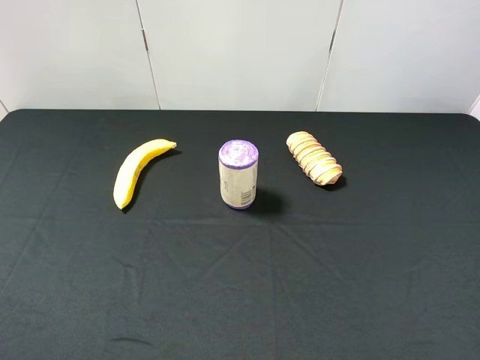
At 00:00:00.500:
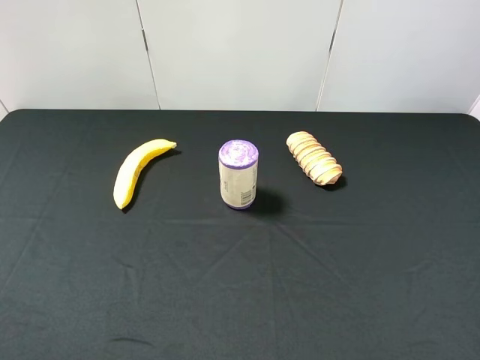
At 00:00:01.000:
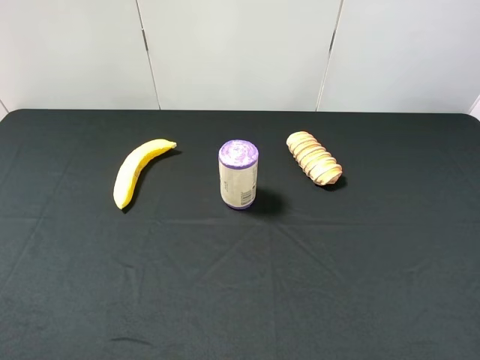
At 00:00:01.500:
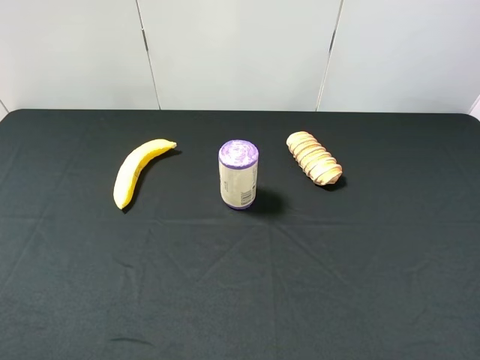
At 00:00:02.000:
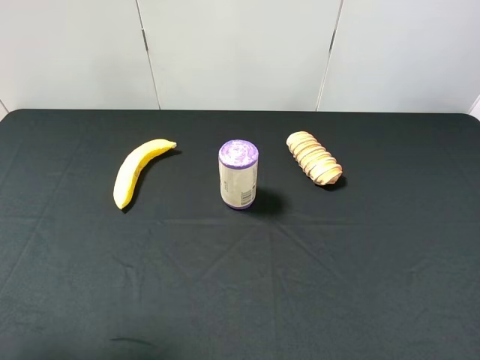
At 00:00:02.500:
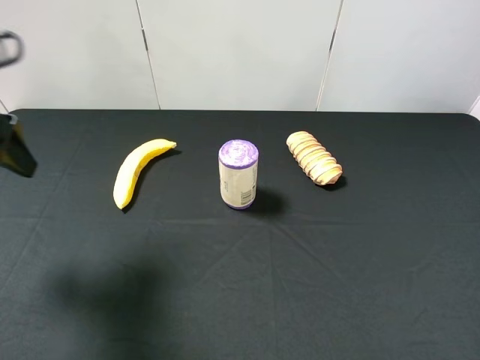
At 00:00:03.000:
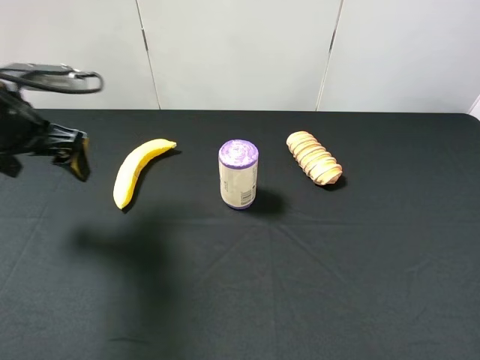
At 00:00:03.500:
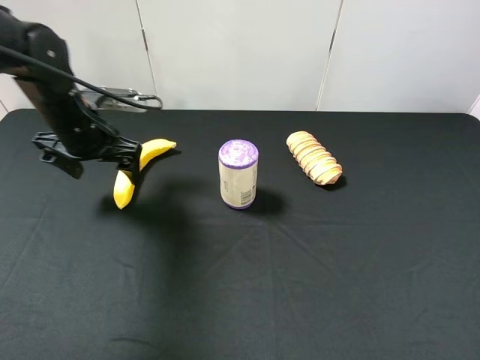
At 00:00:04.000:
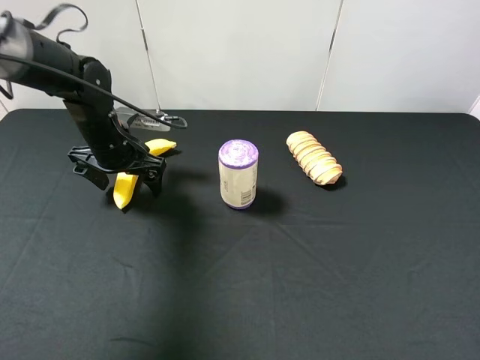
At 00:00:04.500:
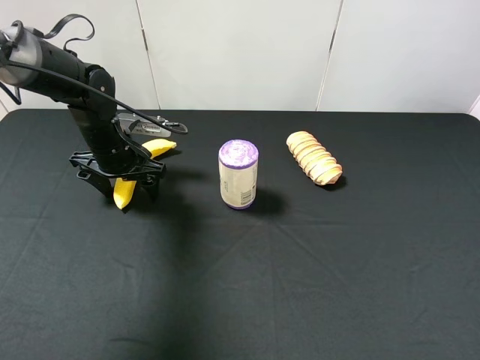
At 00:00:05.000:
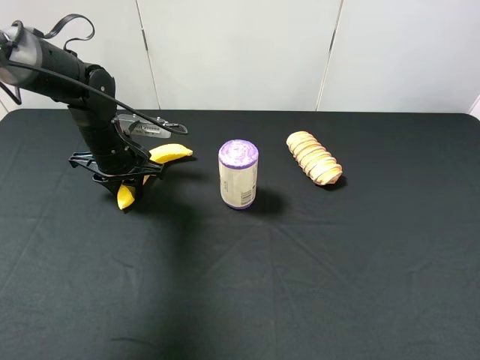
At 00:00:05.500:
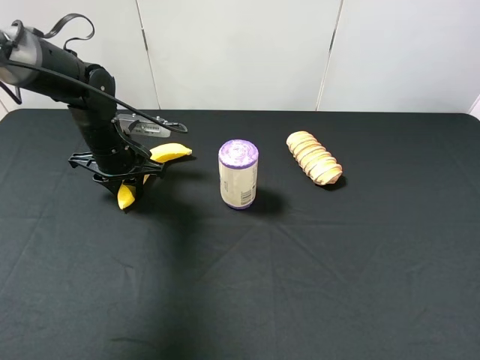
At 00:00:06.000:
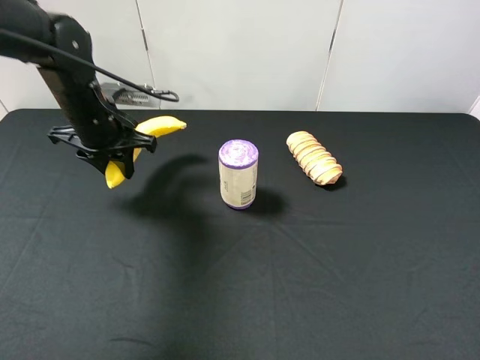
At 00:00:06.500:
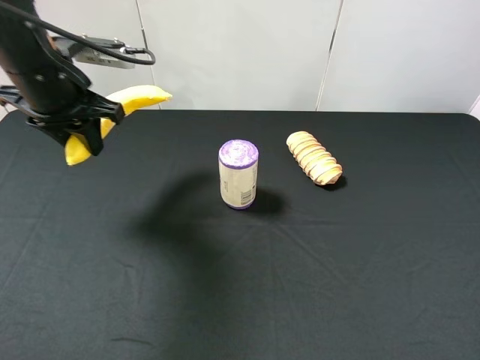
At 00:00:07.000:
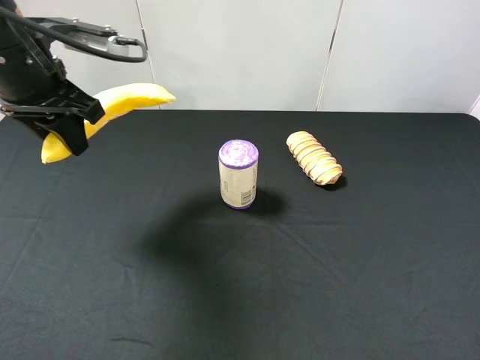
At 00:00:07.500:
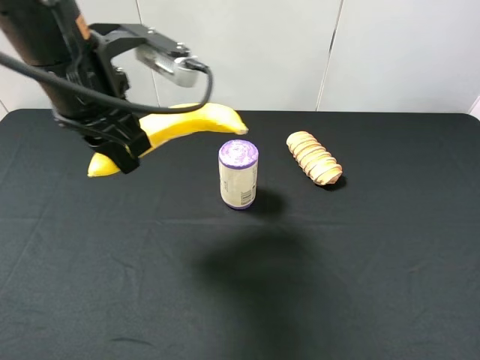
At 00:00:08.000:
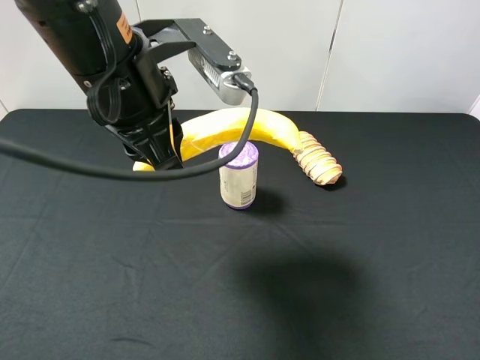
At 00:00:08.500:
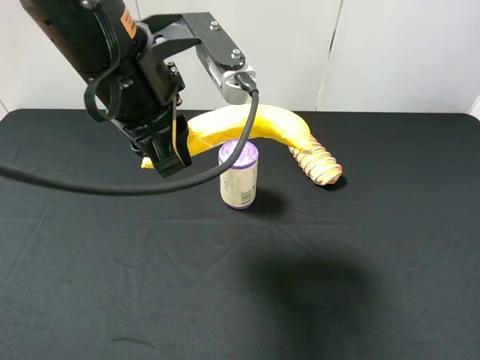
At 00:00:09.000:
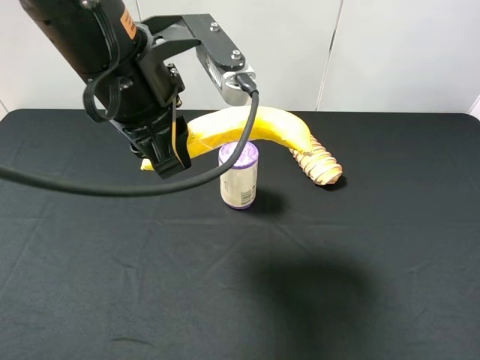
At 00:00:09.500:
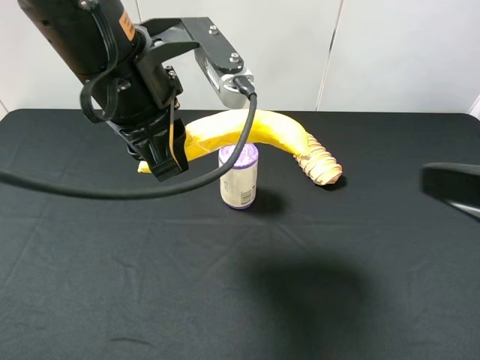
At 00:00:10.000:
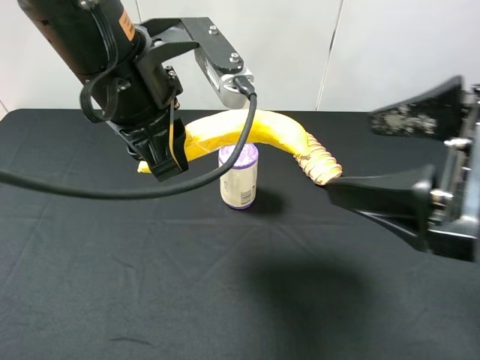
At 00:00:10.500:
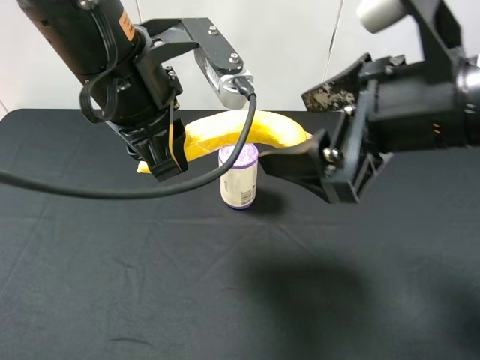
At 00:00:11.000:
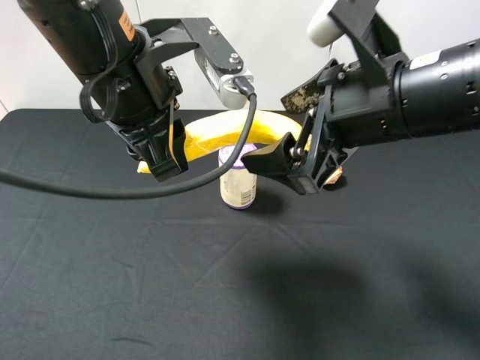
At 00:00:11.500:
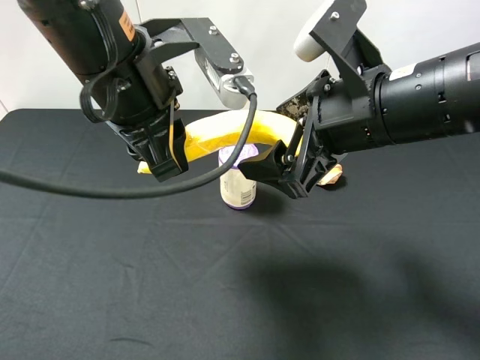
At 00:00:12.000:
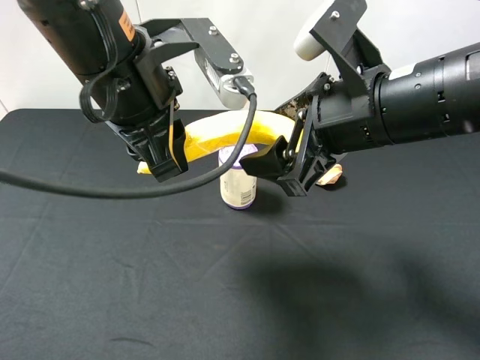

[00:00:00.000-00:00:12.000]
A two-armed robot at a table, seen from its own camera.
Task of the whole recording: use the left gripper to pick up the item and transfer it from the left gripper to the right gripper.
00:00:02.000 to 00:00:04.000: The left gripper travels forward and downward by roughly 35 cm.
00:00:04.000 to 00:00:06.000: The left gripper closes its fingers.
00:00:06.000 to 00:00:08.000: The left gripper shifts some 20 cm upward, backward and to the right.
00:00:08.000 to 00:00:10.000: The right gripper shifts roughly 15 cm forward and to the left.
00:00:10.000 to 00:00:12.000: The right gripper heads forward and to the left, covering approximately 10 cm.

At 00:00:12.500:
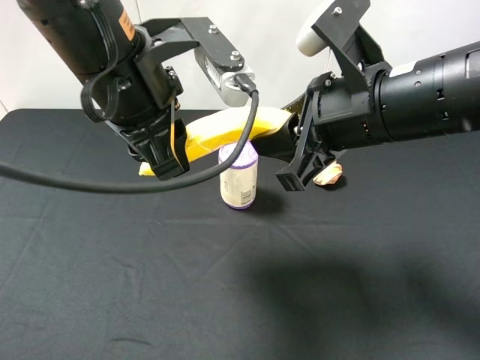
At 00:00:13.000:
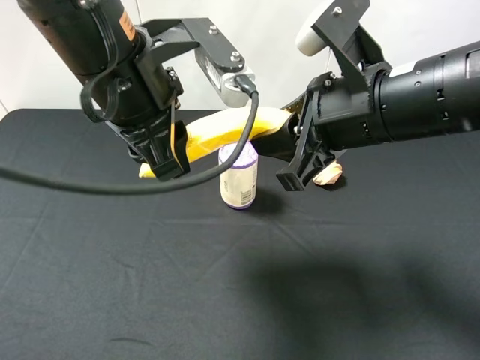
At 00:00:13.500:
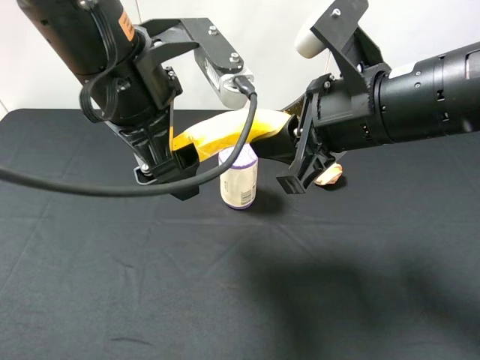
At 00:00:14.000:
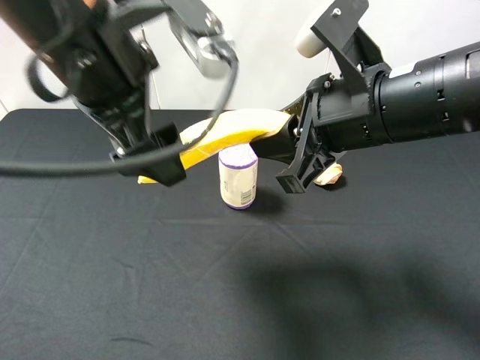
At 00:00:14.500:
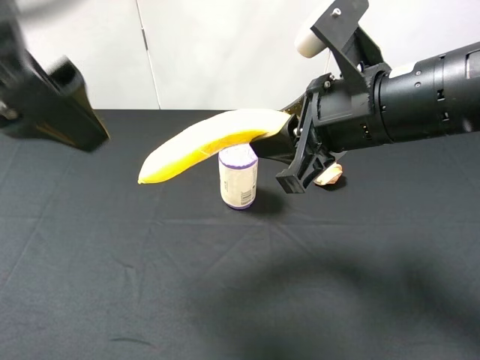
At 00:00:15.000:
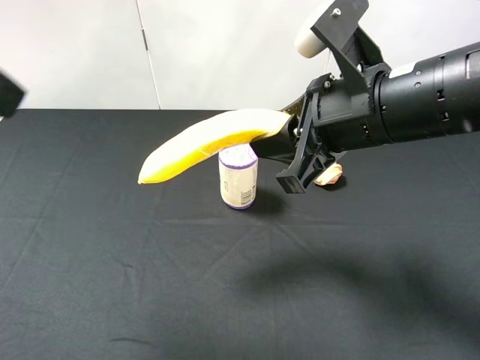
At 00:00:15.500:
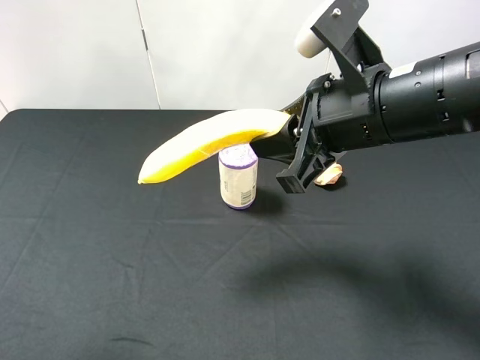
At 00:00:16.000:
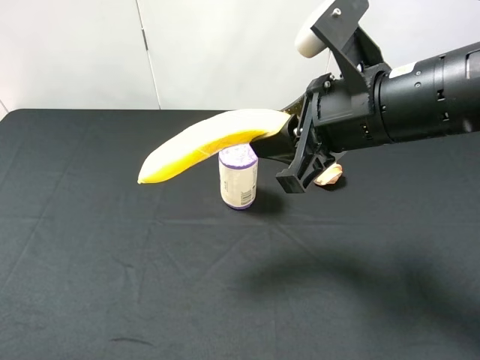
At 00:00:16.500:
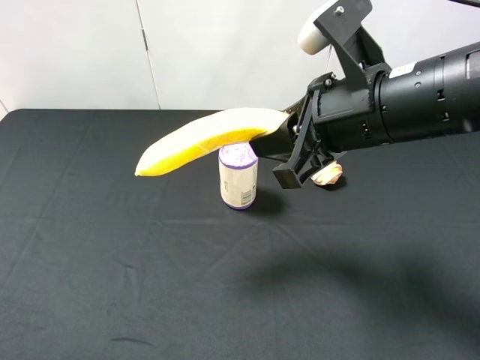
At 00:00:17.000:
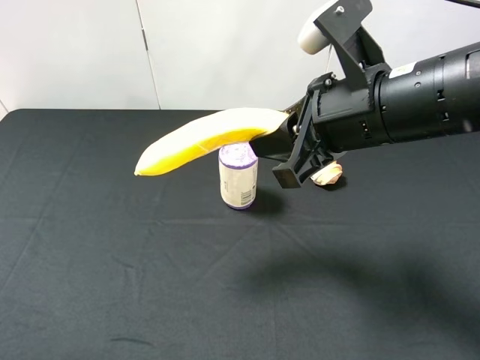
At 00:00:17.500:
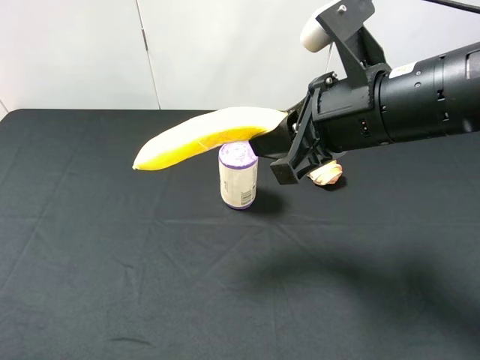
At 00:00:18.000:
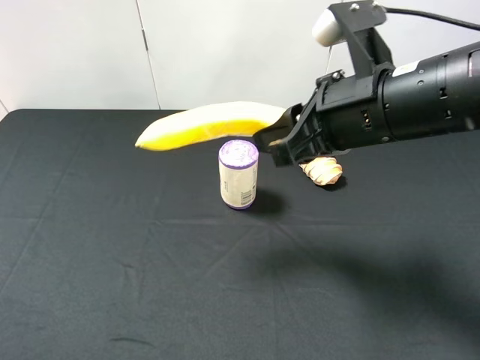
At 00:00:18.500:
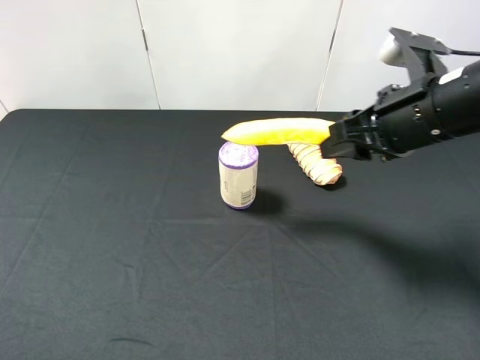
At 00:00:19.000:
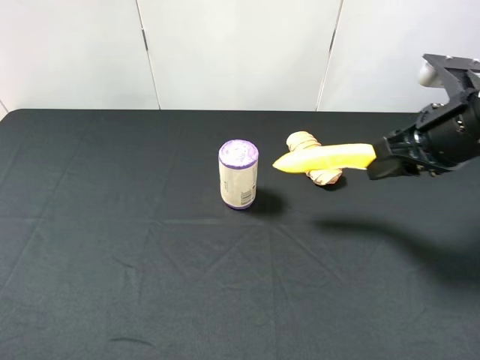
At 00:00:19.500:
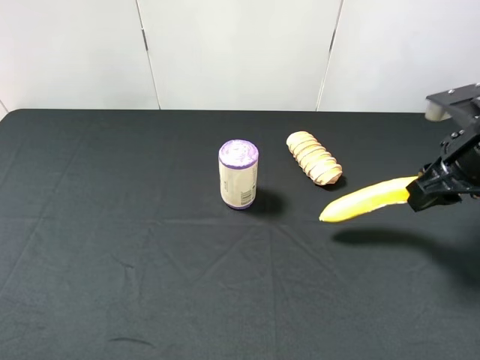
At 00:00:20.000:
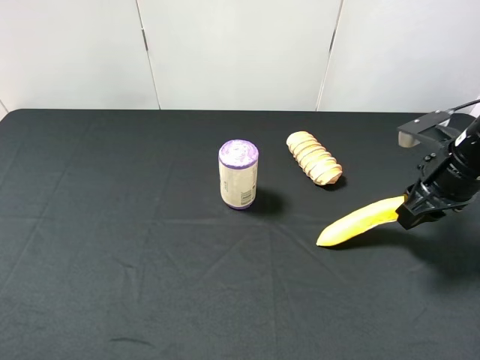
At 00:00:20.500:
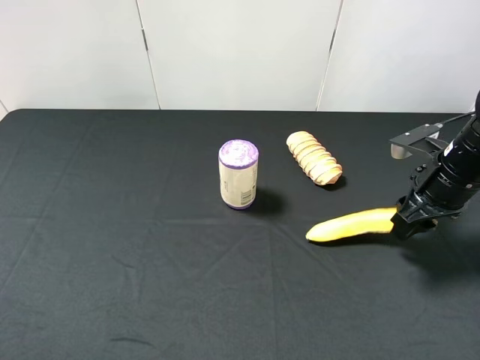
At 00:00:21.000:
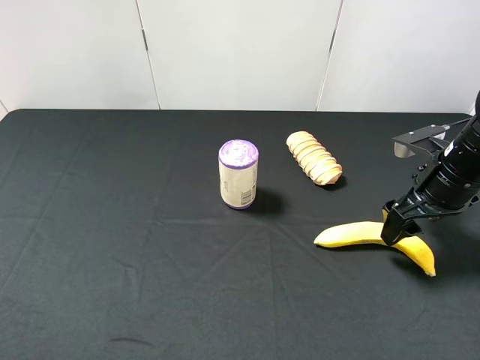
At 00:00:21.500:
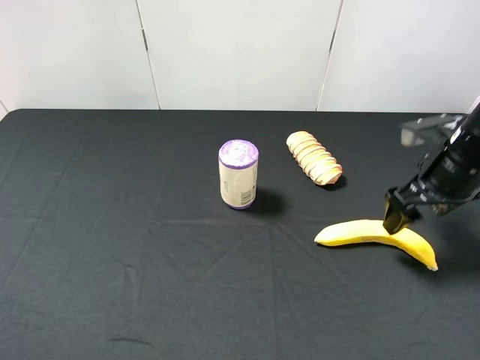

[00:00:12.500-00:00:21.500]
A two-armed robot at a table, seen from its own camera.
Task of the whole recording: use the left gripper to pick up the item and transfer it from the left gripper to the right gripper.
00:00:12.500 to 00:00:14.500: The left gripper heads upward and to the left, covering some 10 cm, and opens.
00:00:14.500 to 00:00:17.000: The left gripper travels backward, to the left and downward by about 25 cm.
00:00:17.000 to 00:00:19.500: The right gripper goes about 15 cm to the right.
00:00:19.500 to 00:00:21.500: The right gripper travels downward by some 5 cm, and opens.

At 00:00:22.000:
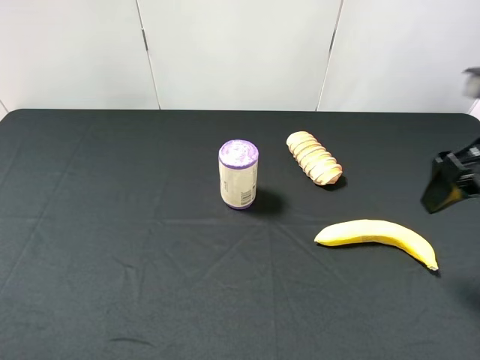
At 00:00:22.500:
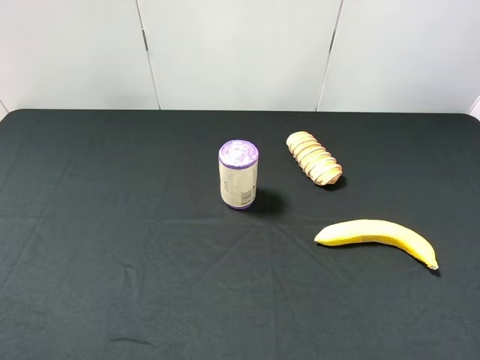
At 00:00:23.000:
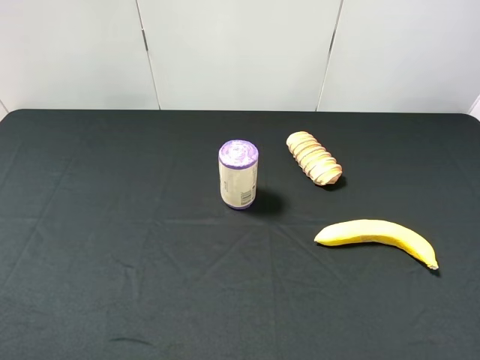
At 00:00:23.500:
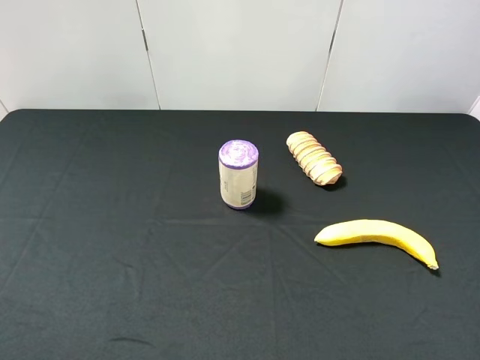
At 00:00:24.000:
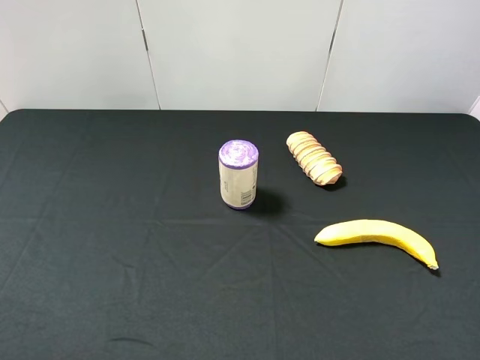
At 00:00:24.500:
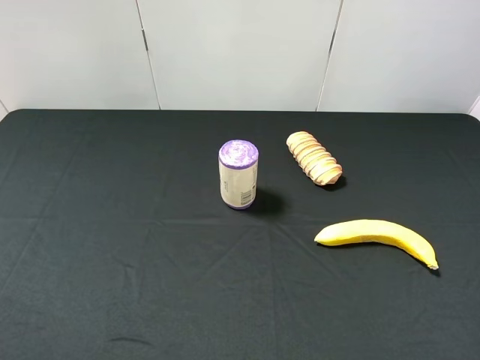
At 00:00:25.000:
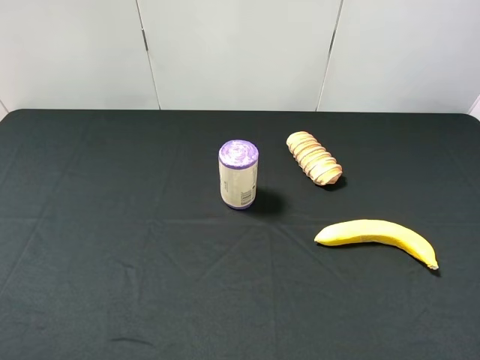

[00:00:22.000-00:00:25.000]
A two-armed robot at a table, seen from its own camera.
Task of the whole recording: use the left gripper to pick up the item and transfer it from the left gripper to the right gripper.
00:00:22.000 to 00:00:23.500: The right gripper moves backward, approximately 25 cm.
00:00:23.500 to 00:00:25.000: Both grippers stay put.
